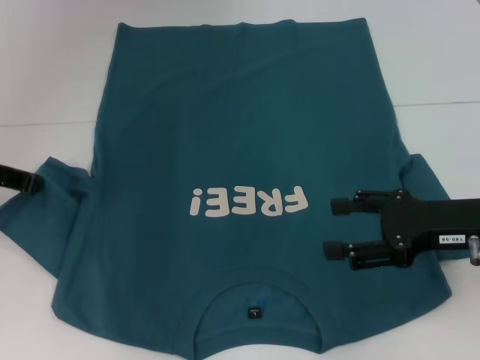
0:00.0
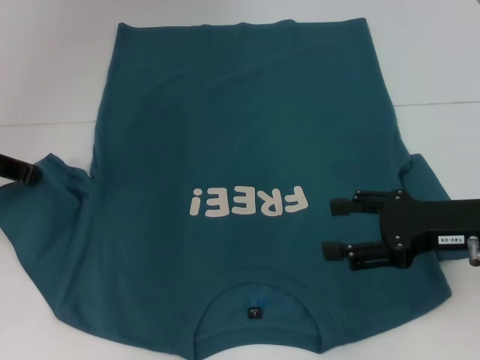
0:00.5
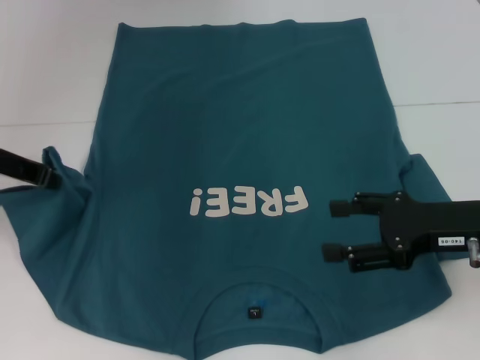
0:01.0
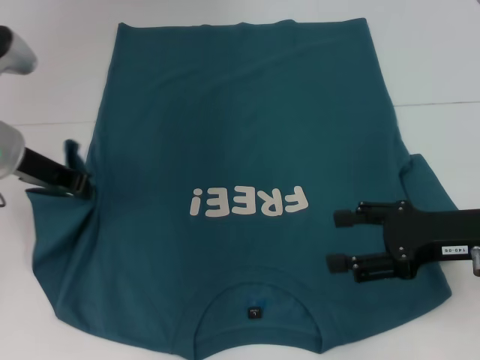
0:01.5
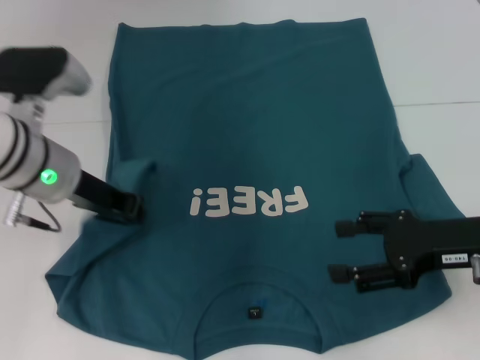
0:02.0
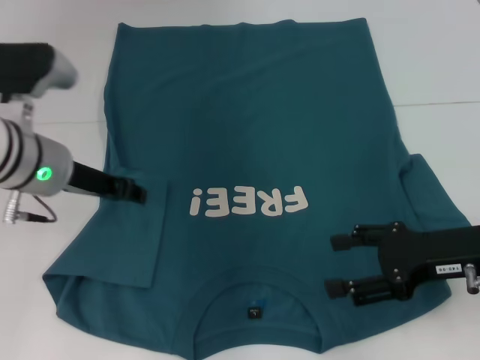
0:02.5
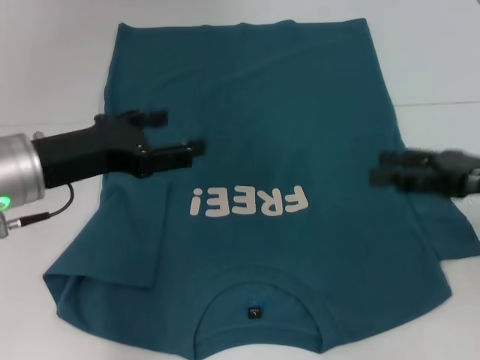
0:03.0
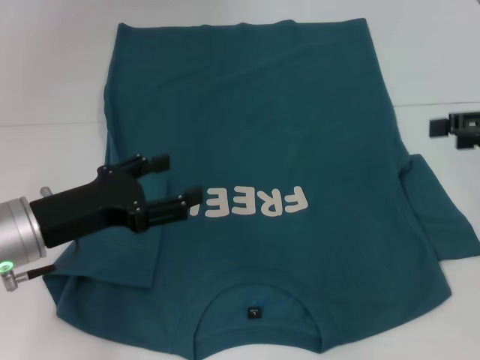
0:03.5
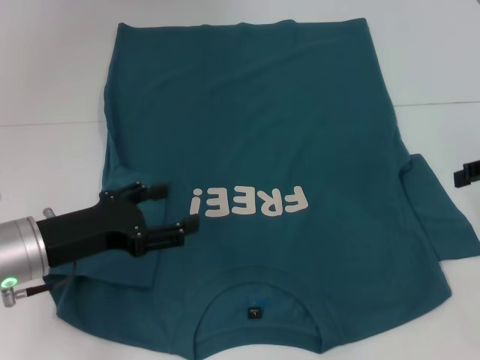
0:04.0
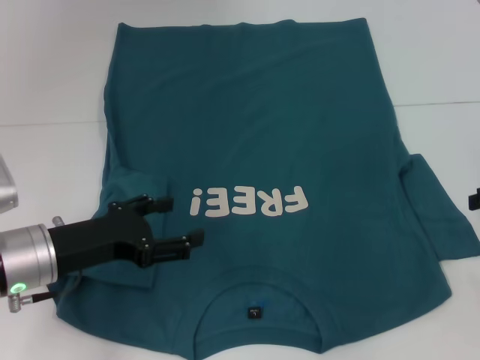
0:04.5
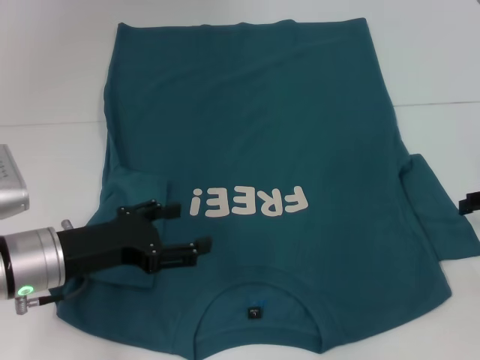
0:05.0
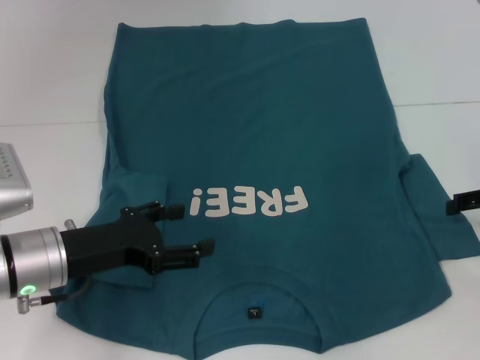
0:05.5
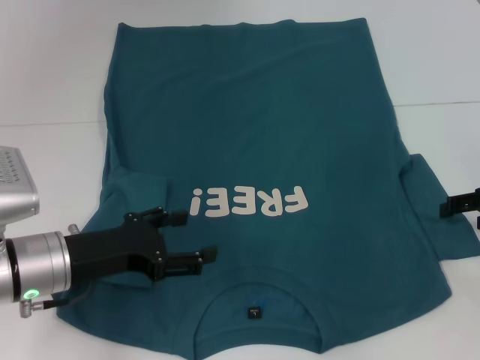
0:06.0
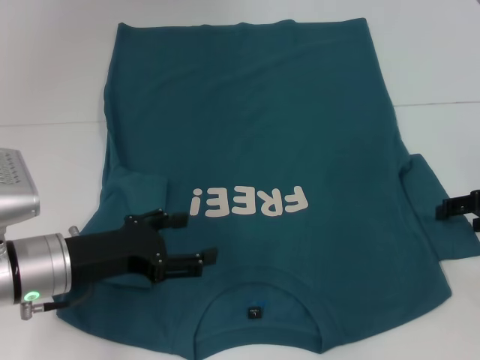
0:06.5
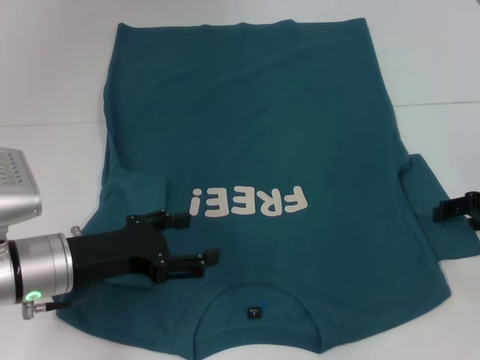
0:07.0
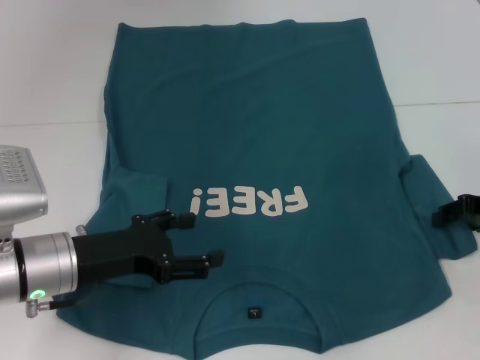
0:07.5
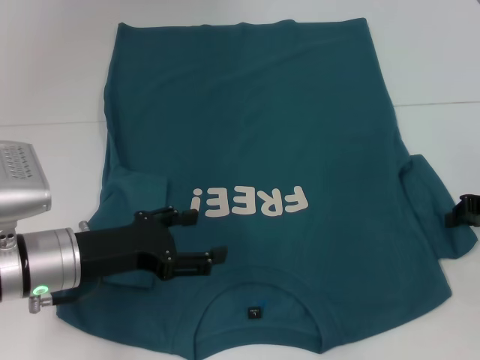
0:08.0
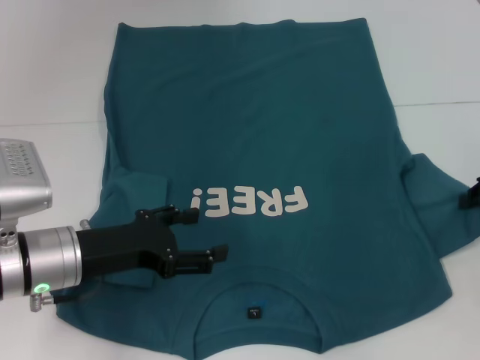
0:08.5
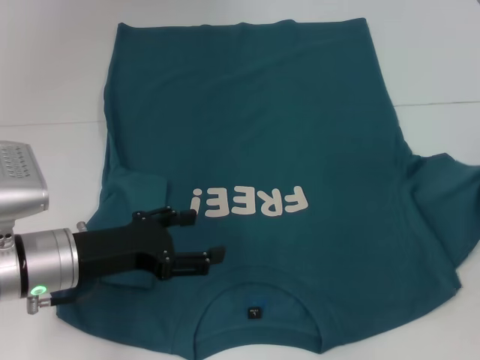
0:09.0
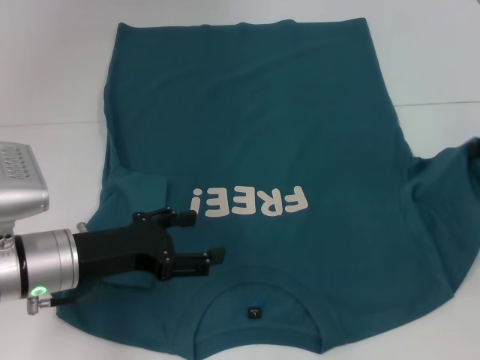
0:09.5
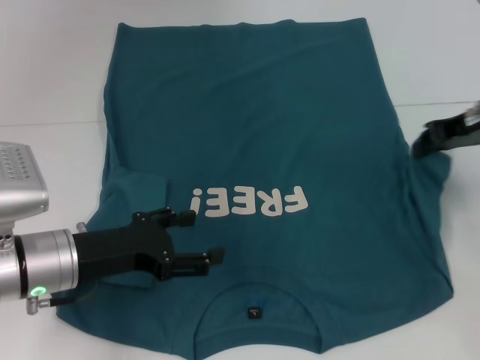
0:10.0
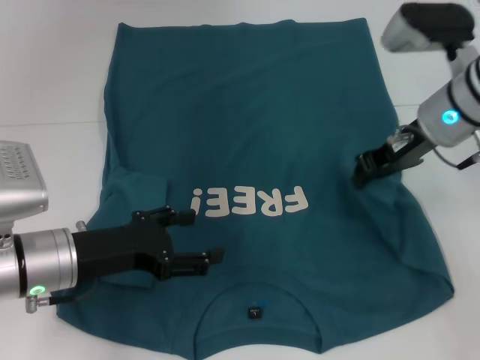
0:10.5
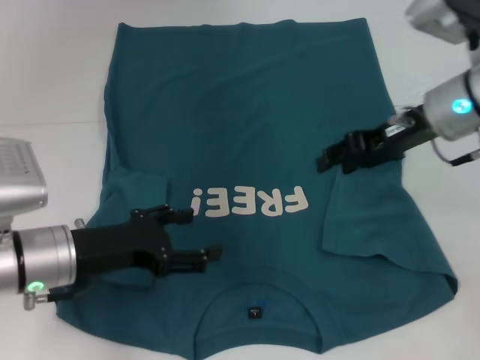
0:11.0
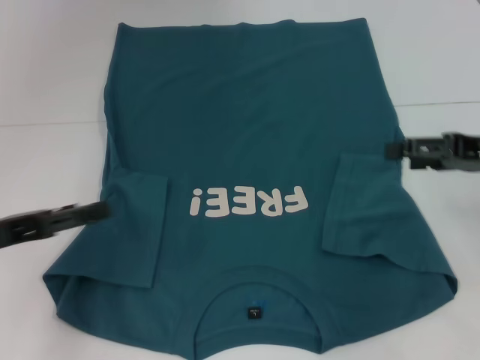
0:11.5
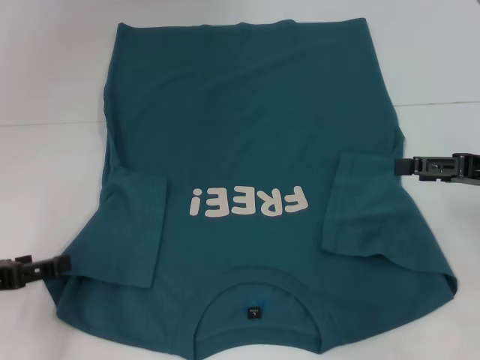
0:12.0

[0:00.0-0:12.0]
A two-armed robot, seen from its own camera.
Step, 0:00.0 to 0:02.5: Fold the bottom left sleeve with your left hand.
Step, 0:03.0 to 0:10.5: Fold the bottom right sleeve to the right.
0:00.0 to 0:02.0: The left gripper heads to the right, covering roughly 10 cm.
0:02.0 to 0:04.0: The left gripper travels backward and downward by approximately 10 cm, and opens up; the right gripper travels to the right, upward and forward by roughly 15 cm.
0:04.0 to 0:06.0: The right gripper shifts roughly 10 cm downward.
0:06.0 to 0:08.0: The right gripper closes up.
0:08.0 to 0:10.0: The right gripper travels upward, to the left and forward by some 10 cm.
0:10.0 to 0:12.0: The right gripper is displaced backward by approximately 10 cm, goes to the left and returns, about 10 cm each way, and opens up. The left gripper moves to the left, roughly 10 cm.

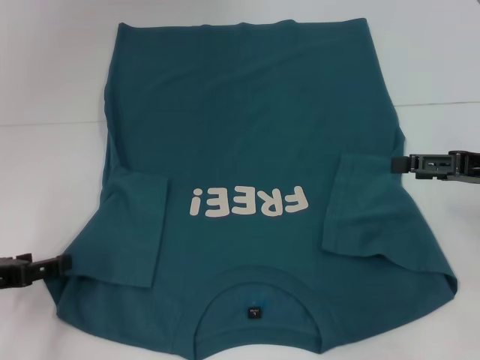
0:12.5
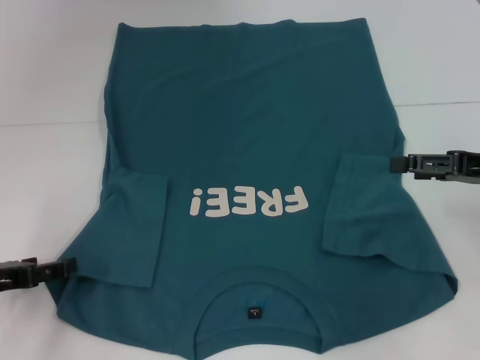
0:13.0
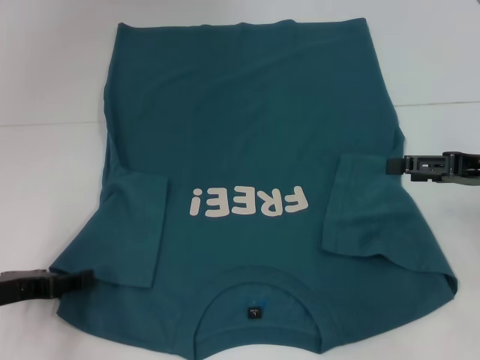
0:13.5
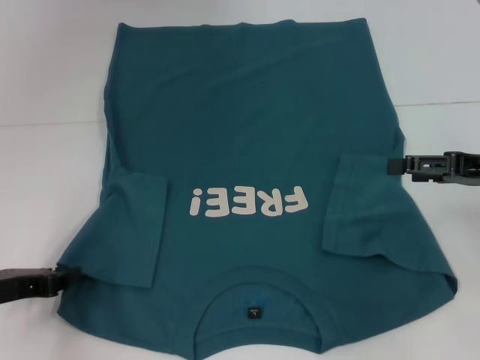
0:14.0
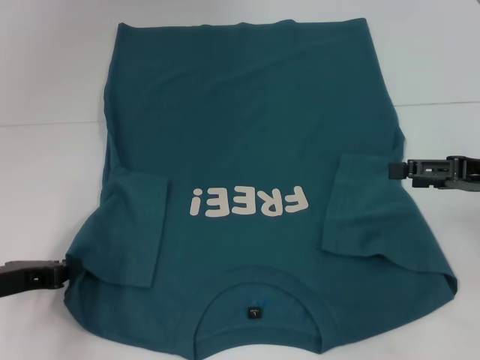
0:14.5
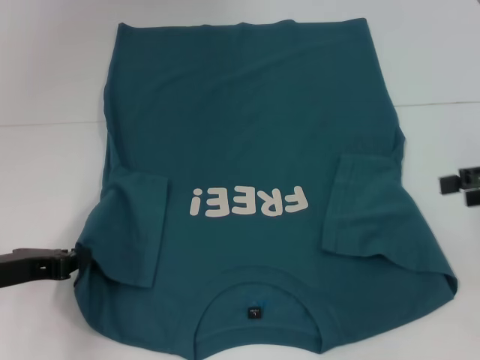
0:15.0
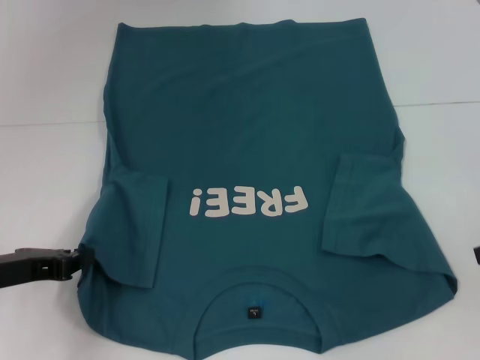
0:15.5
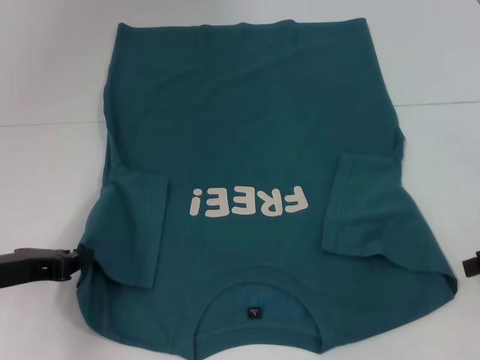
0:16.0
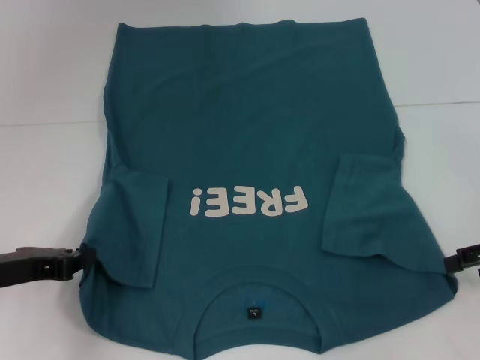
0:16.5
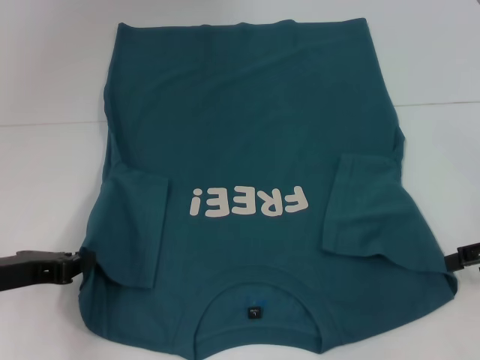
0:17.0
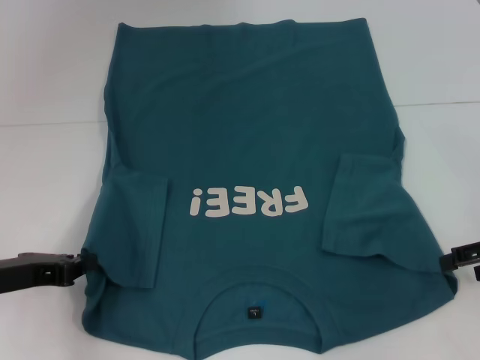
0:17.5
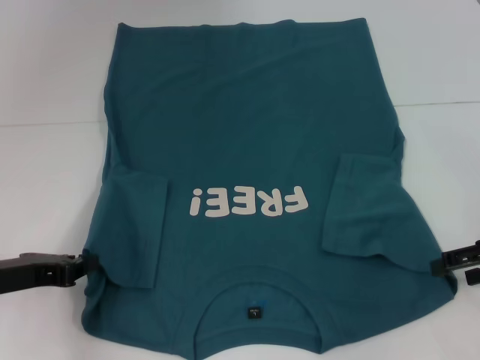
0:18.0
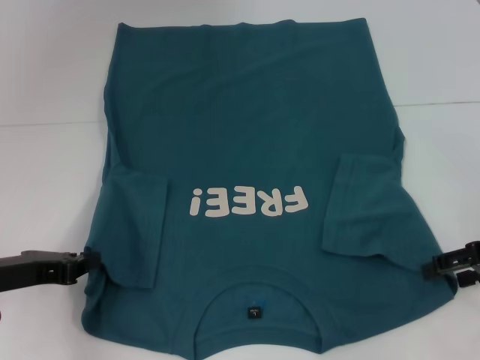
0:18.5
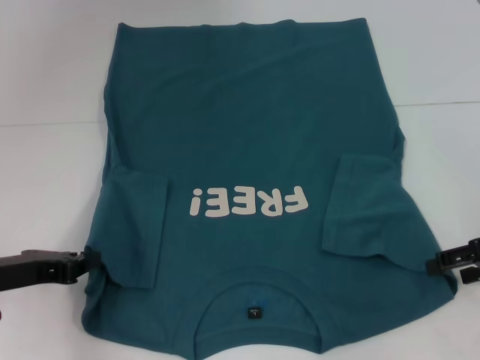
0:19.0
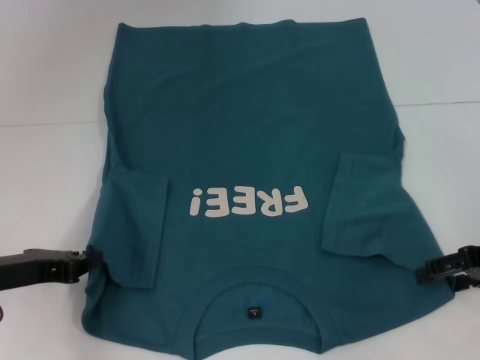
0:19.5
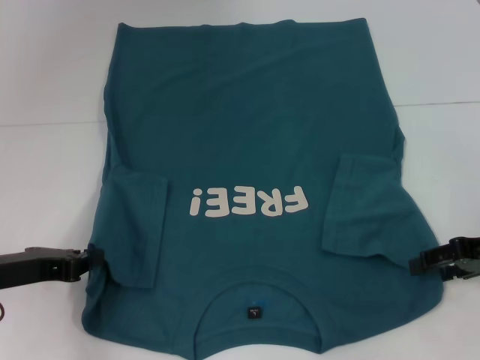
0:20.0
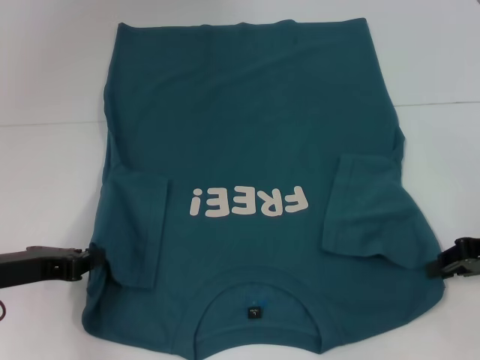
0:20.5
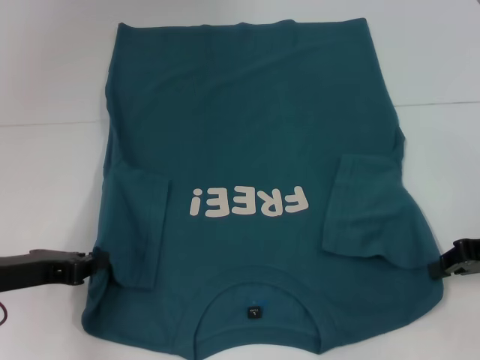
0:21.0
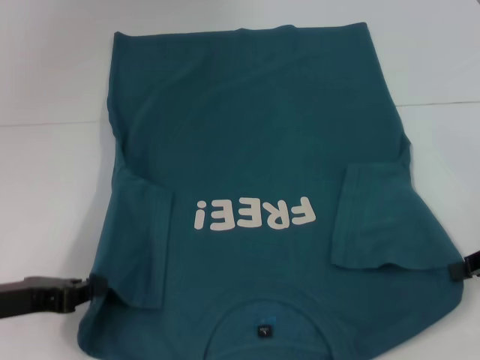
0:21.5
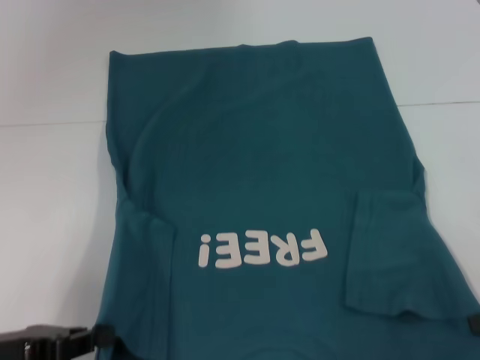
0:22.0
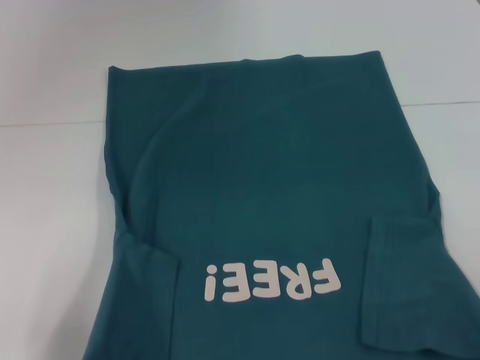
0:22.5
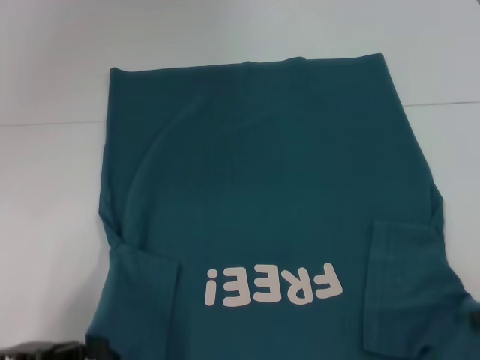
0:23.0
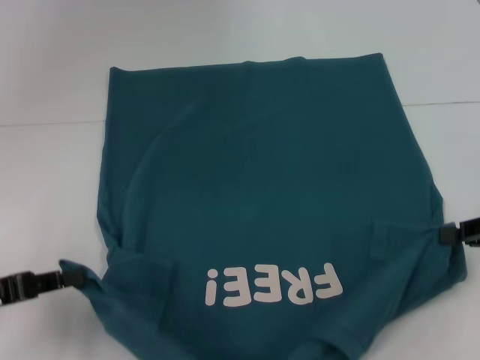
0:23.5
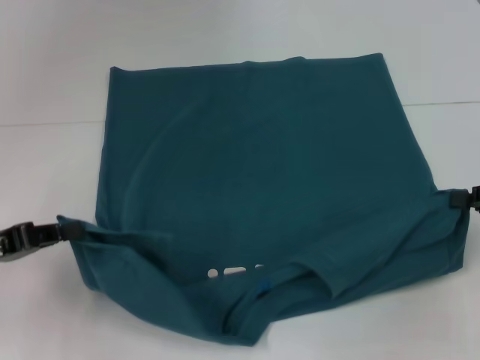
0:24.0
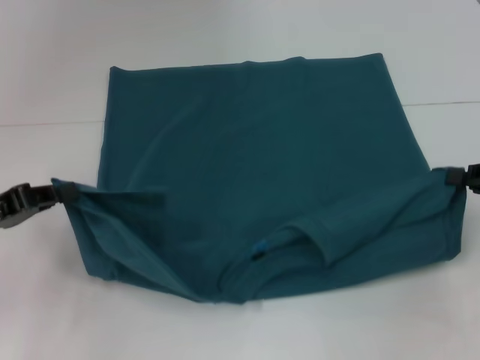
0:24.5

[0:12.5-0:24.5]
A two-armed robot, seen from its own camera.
Step, 0:12.5 to 0:15.0: Grab the bottom left corner with your left hand.
Step, 0:15.5 to 0:20.5: Grab the bottom right corner with your right hand.
0:12.5 to 0:14.5: The left gripper closes its fingers.
0:16.5 to 0:18.5: The grippers move only a little.
0:18.5 to 0:20.5: The right gripper closes up.
0:20.5 to 0:22.5: The right gripper travels backward and to the right by some 10 cm, while the left gripper moves backward, some 10 cm.
0:22.5 to 0:24.5: Both grippers travel together forward, roughly 10 cm.

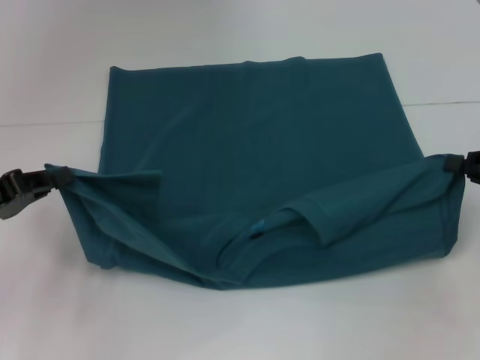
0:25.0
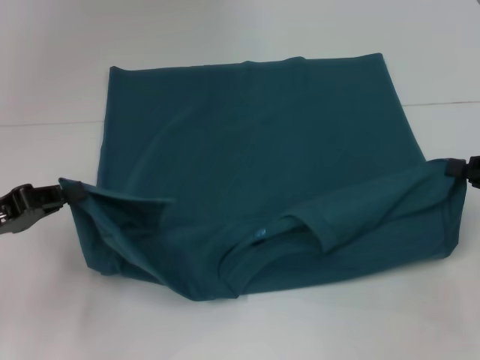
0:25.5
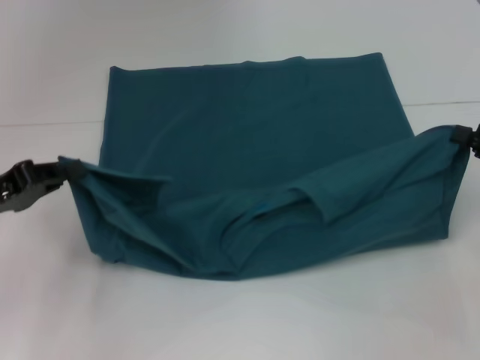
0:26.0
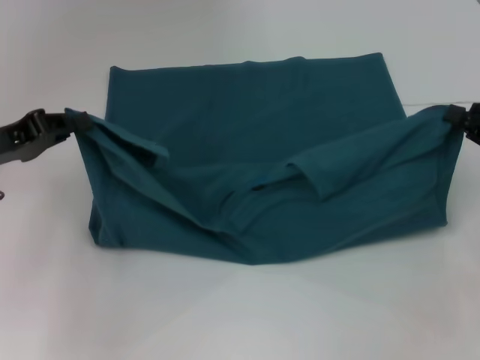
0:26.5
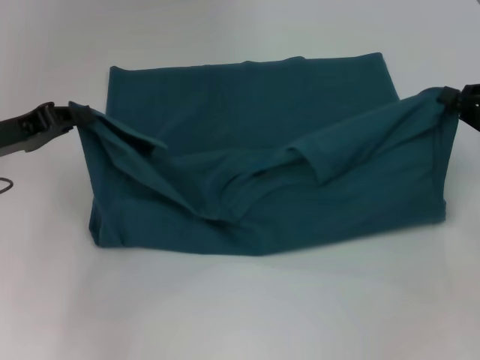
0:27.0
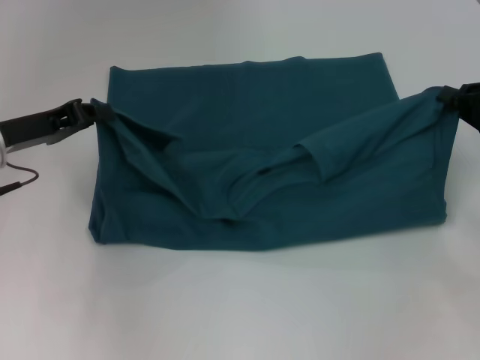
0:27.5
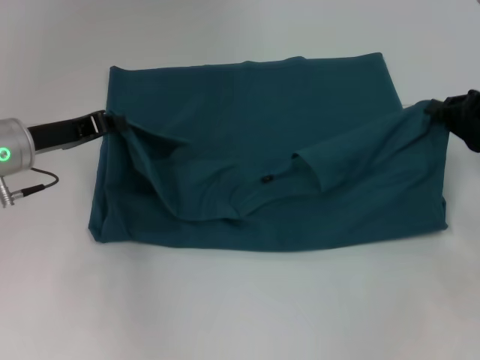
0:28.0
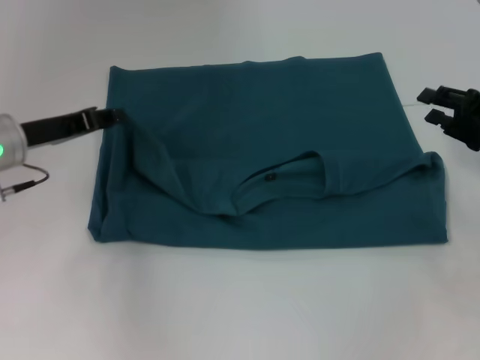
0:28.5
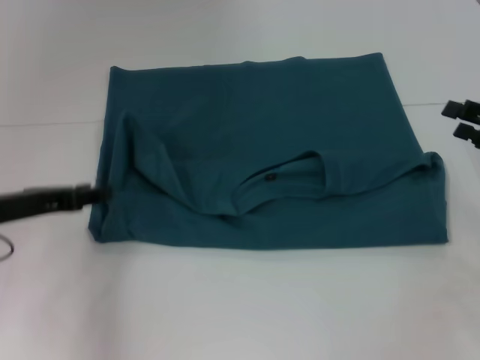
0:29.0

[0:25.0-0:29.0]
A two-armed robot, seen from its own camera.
Step, 0:25.0 to 0:28.0: Fold the clothes to the left.
Step, 0:25.0 to 0:28.0: Fold the clothes to the right.
0:25.0 to 0:27.0: The left gripper goes some 5 cm forward.
0:27.0 to 0:29.0: The right gripper opens; the left gripper opens its fingers.
